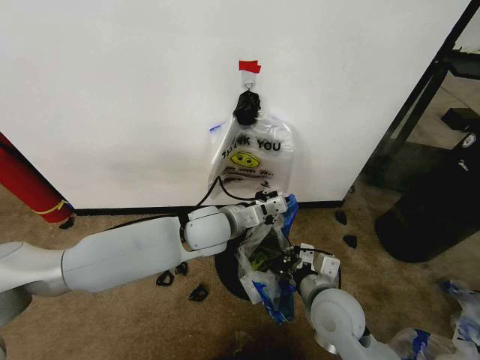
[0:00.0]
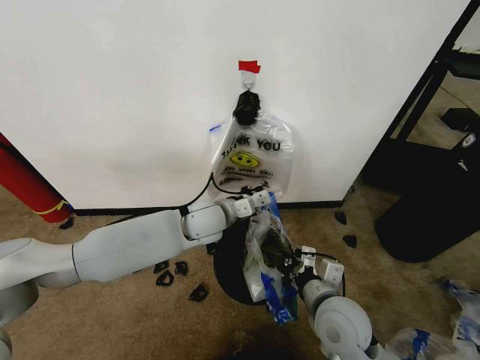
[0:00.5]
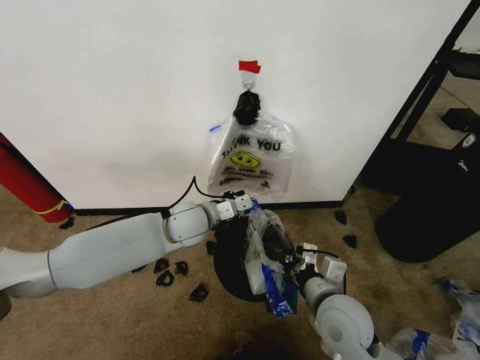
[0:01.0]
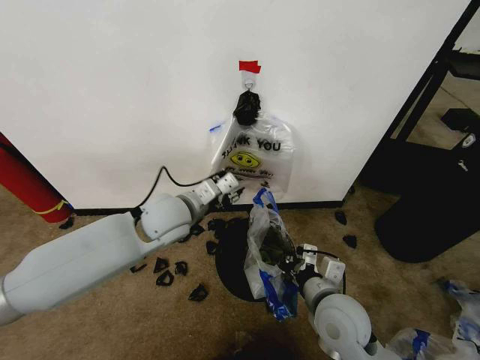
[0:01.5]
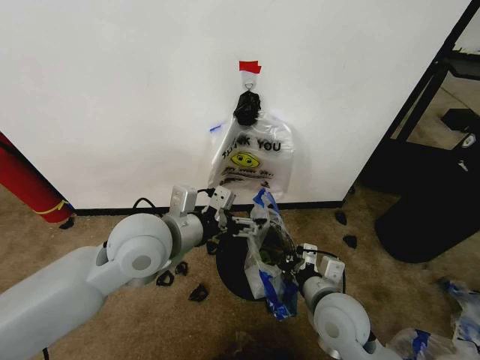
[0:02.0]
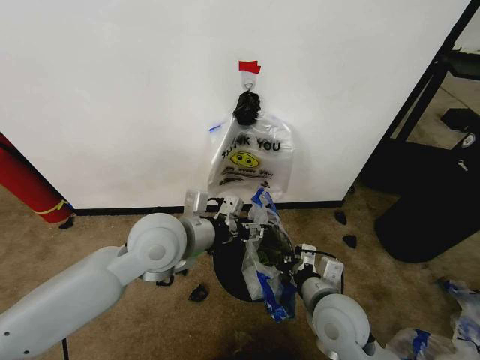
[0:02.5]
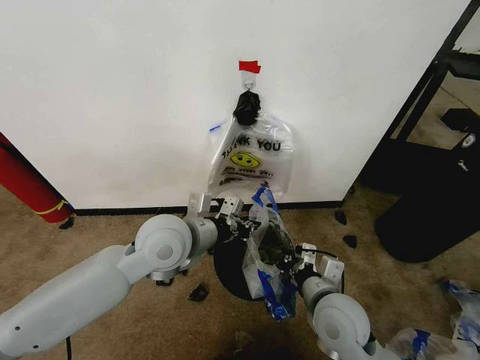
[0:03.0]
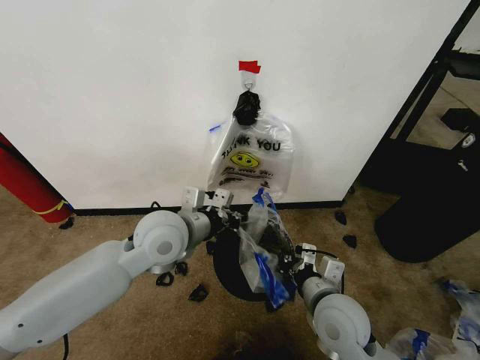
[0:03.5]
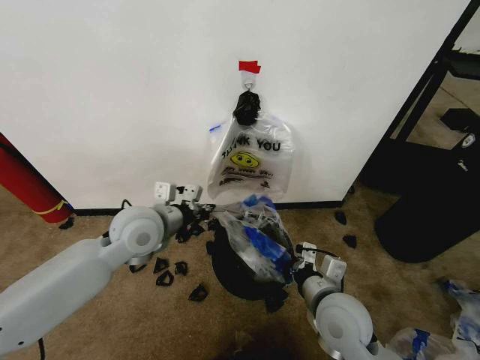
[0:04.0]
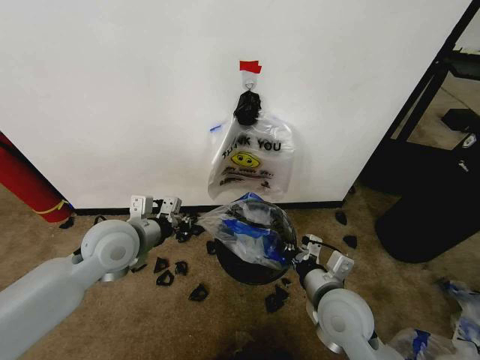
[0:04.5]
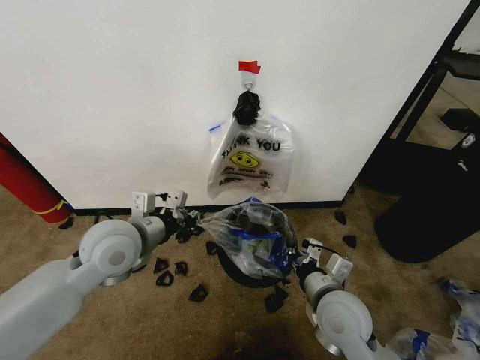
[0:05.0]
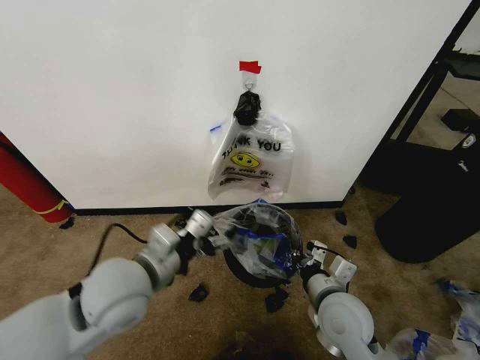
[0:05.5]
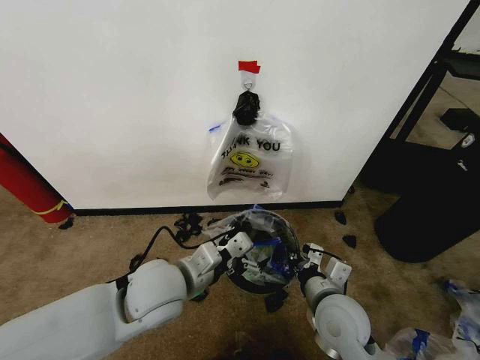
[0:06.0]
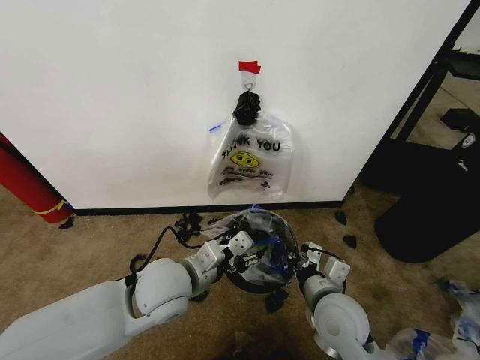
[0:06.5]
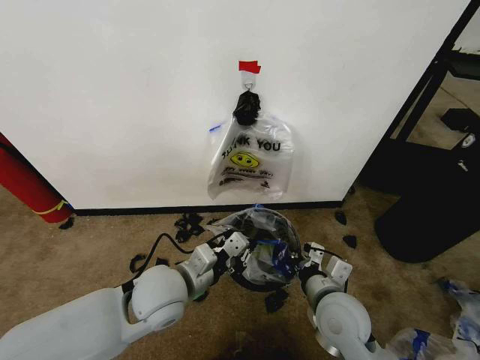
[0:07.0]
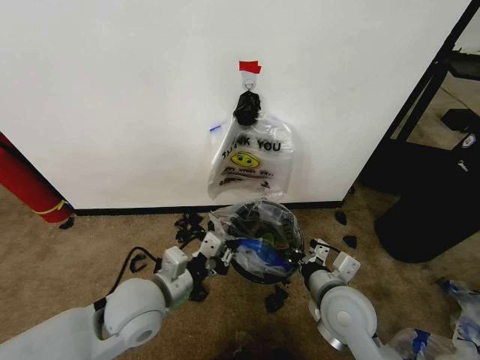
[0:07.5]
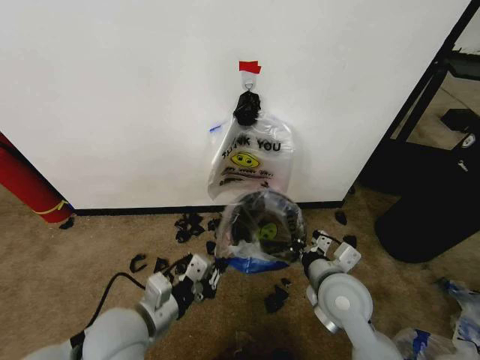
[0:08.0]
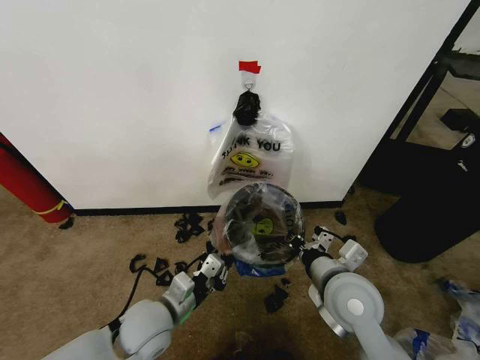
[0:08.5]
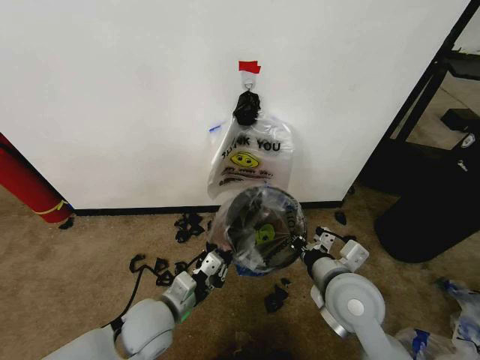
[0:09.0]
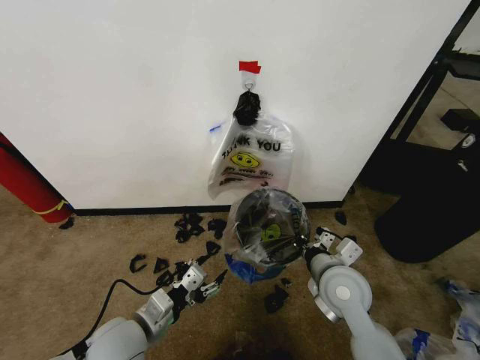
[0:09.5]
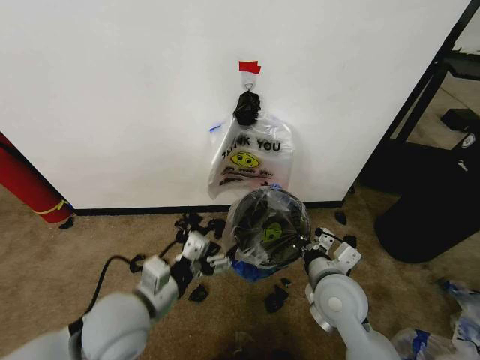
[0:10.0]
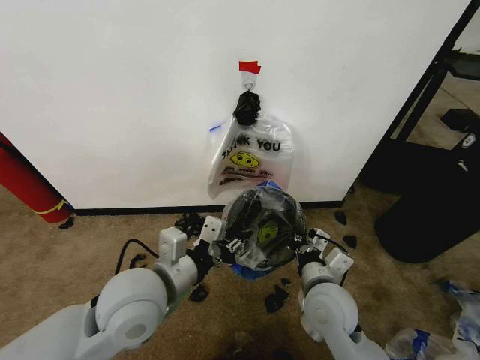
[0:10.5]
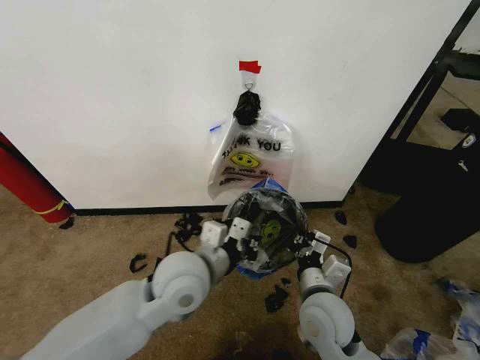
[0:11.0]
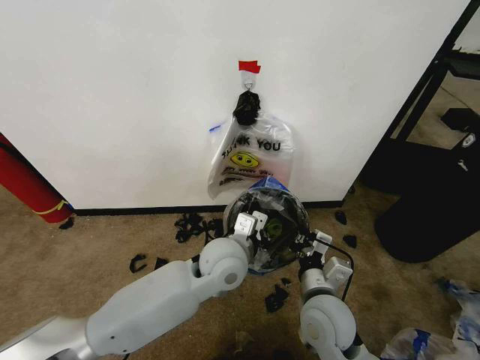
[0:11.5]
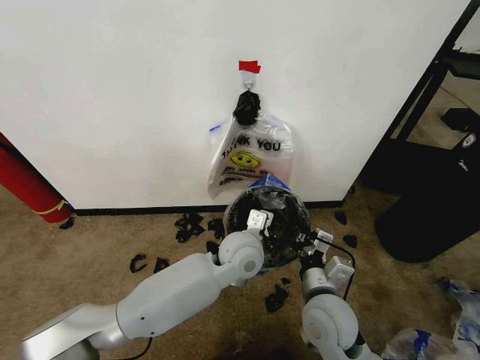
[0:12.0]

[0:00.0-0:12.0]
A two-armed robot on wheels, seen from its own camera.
Task of the whole recording: Pick up the garbage bag from the wall and place it over the trash bin.
0:00.0 to 0:02.0: The left gripper shifts approximately 15 cm to the left, backward and upward, and opens.
0:02.0 to 0:04.0: The left gripper goes about 5 cm forward, and closes.
0:04.0 to 0:06.0: The left gripper shifts roughly 10 cm backward, and opens up.
0:06.0 to 0:08.0: The left gripper is displaced backward, to the left and downward by roughly 10 cm, and closes.
0:08.0 to 0:10.0: The left gripper opens up.
0:10.0 to 0:12.0: The left gripper heads to the right and forward, covering about 25 cm, and closes its fingers.

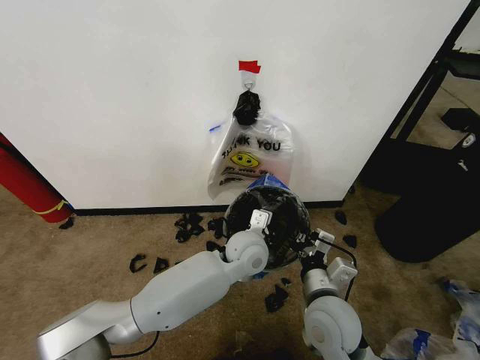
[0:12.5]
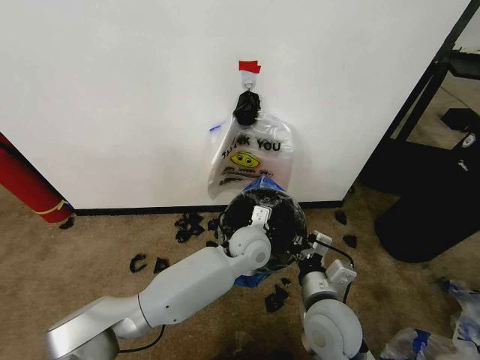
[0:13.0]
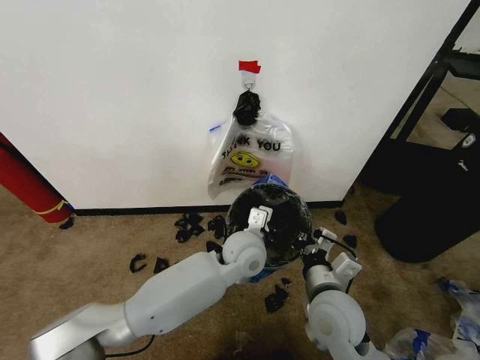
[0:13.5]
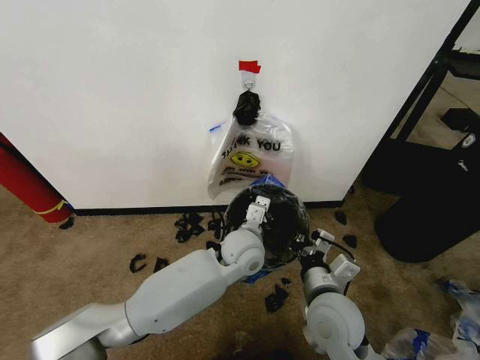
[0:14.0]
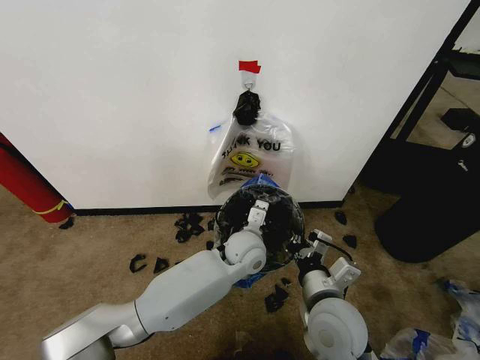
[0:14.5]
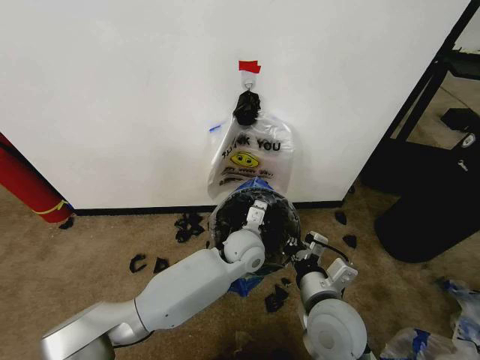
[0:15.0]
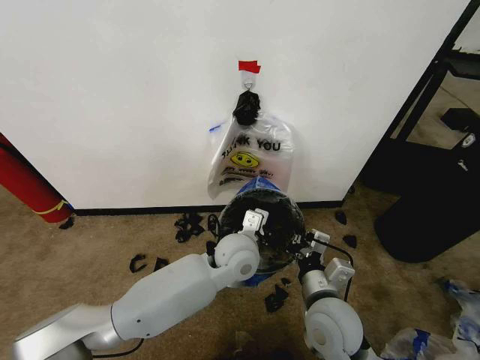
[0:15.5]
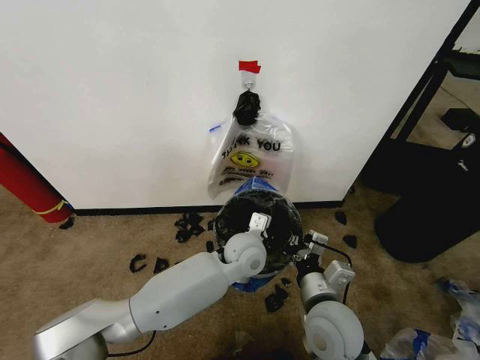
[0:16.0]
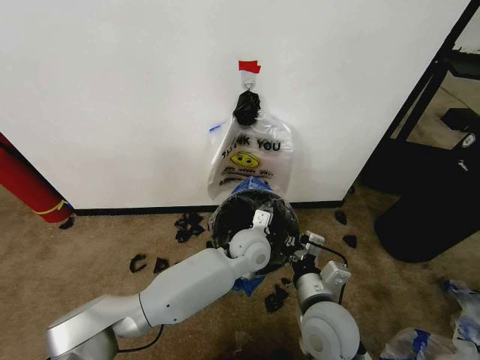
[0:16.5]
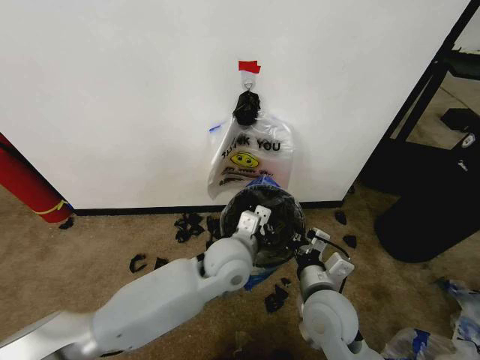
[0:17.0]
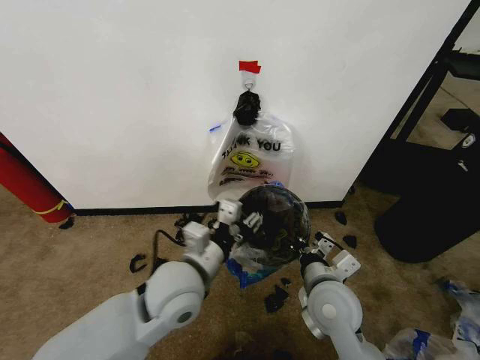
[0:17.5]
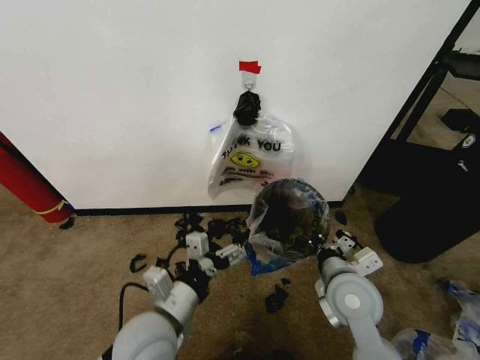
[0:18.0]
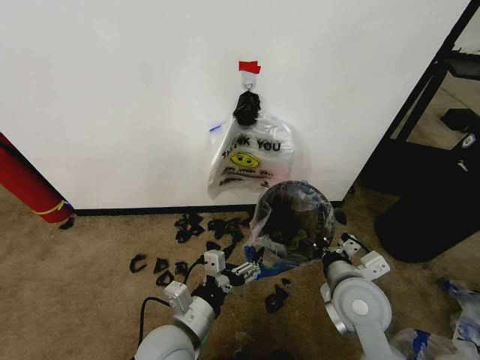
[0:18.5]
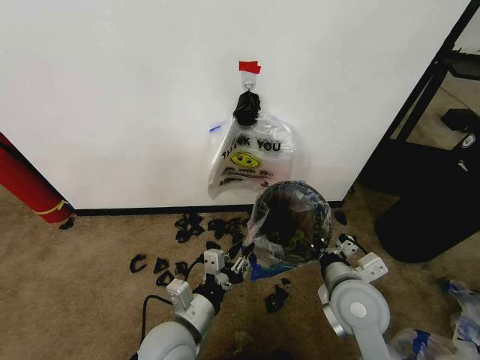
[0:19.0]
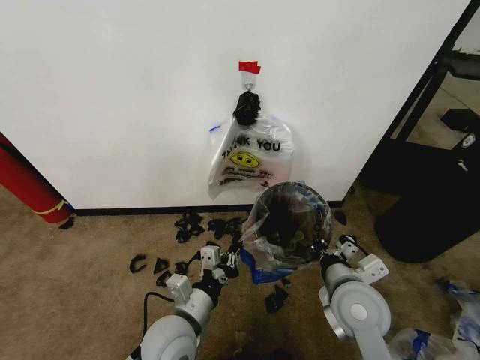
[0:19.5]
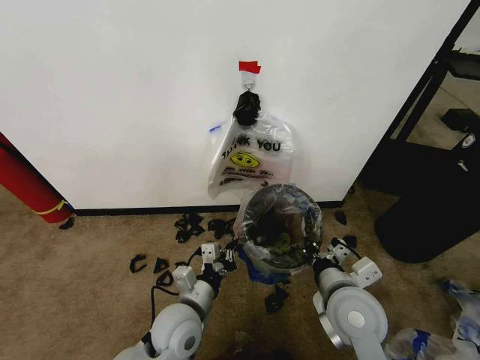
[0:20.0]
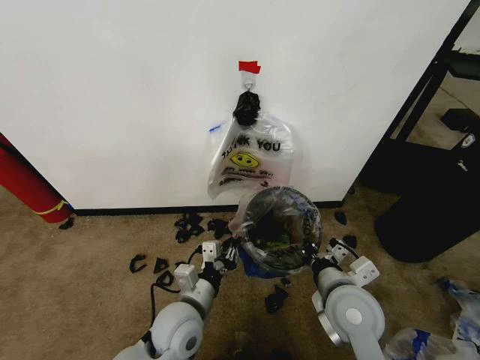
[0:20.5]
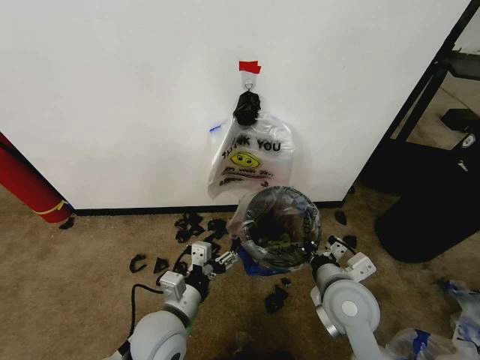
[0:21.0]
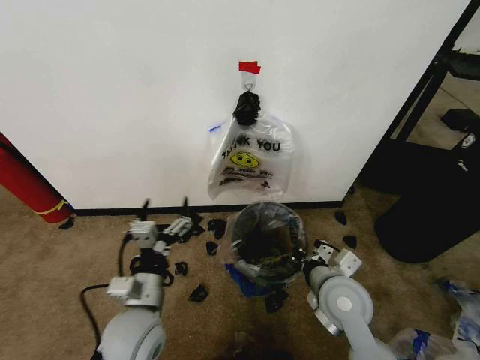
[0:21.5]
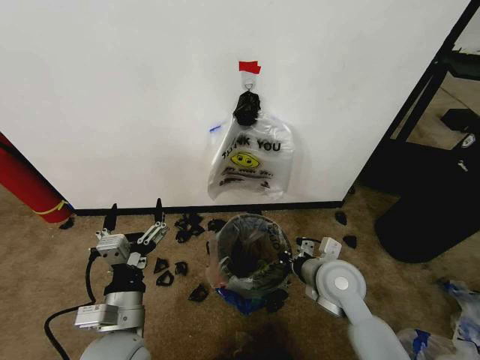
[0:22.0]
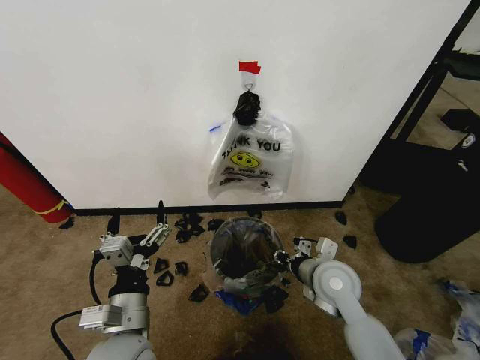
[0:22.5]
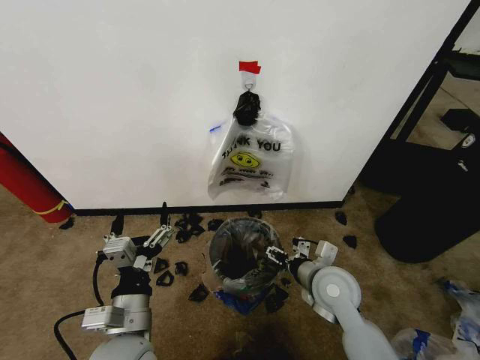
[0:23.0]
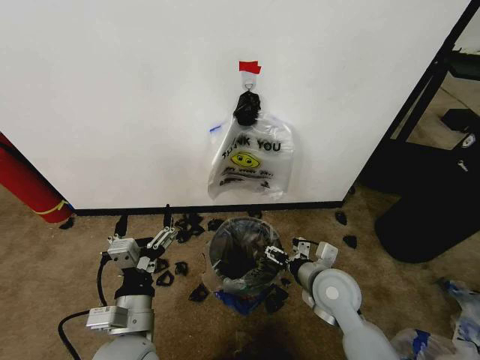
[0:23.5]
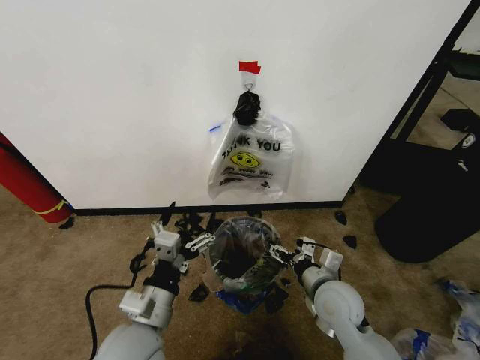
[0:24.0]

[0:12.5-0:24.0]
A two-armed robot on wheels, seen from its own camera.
Task of the whole recording: Pick up the garbage bag from the wall and place it over the trash bin.
0:12.5 to 0:16.5: The grippers stay close to where they were, moving slightly.
0:16.5 to 0:18.5: The right gripper is displaced to the right by about 5 cm; the left gripper moves backward and to the left, approximately 25 cm, and opens.
0:18.5 to 0:20.0: The left gripper is displaced forward by about 5 cm, and closes.
0:20.0 to 0:22.0: The right gripper is displaced forward by some 5 cm; the left gripper moves to the left, upward and backward, roughly 10 cm, and opens up.
0:22.0 to 0:24.0: The right gripper shifts by roughly 5 cm, and opens up.

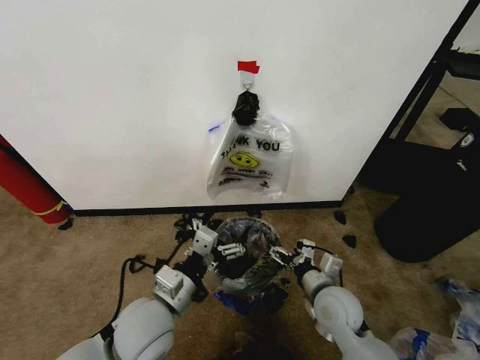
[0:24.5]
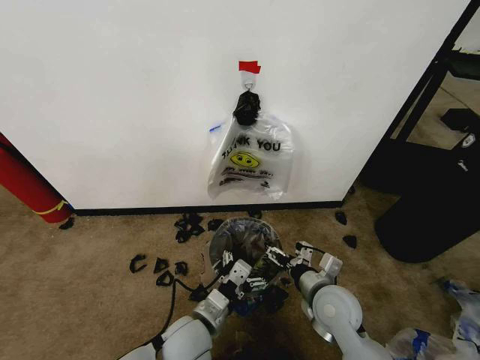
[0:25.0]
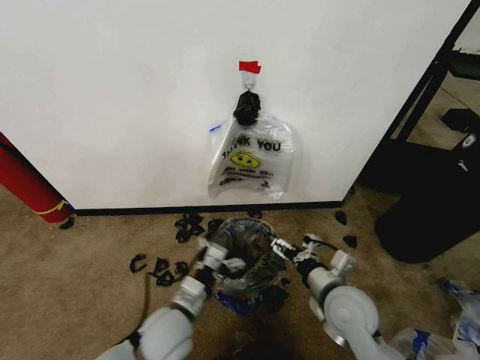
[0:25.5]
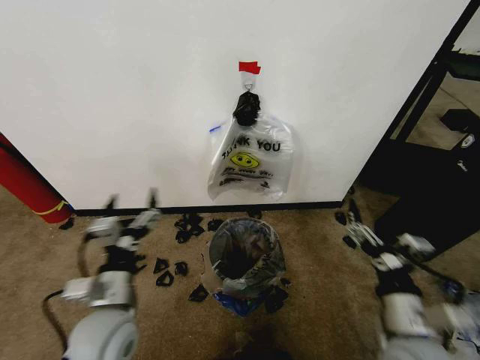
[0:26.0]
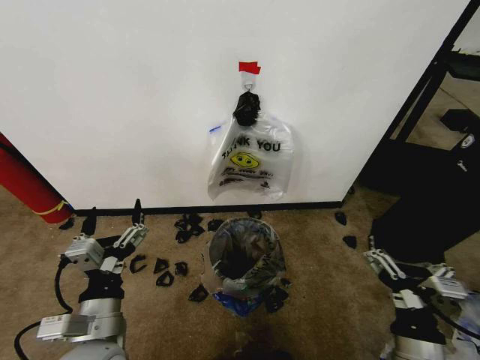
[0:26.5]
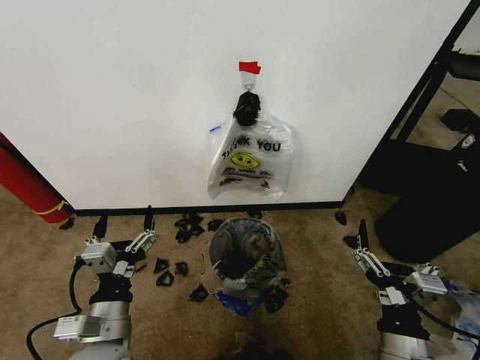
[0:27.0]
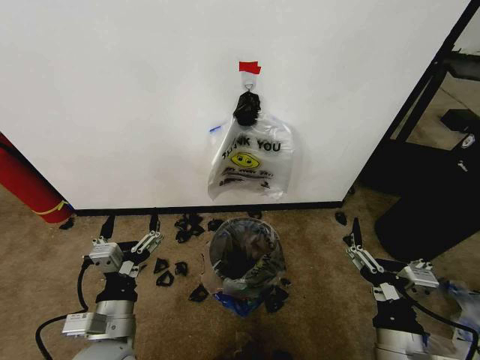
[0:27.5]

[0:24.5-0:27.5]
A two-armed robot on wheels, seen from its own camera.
Task of the whole recording: Pick up the garbage bag from the wall and place it over the trash bin.
0:24.5 to 0:26.0: The left gripper goes approximately 5 cm to the left. The right gripper travels backward, upward and to the right by about 15 cm.
0:26.0 to 0:27.5: The right gripper is displaced backward by approximately 5 cm.
